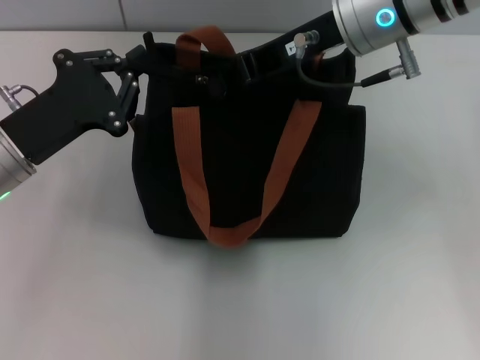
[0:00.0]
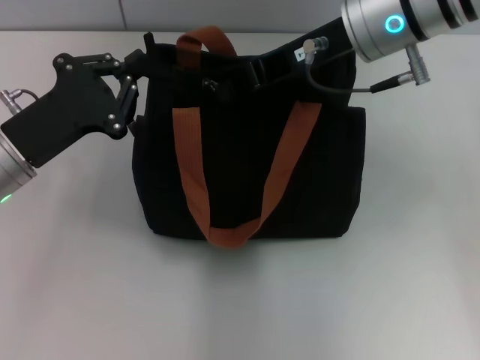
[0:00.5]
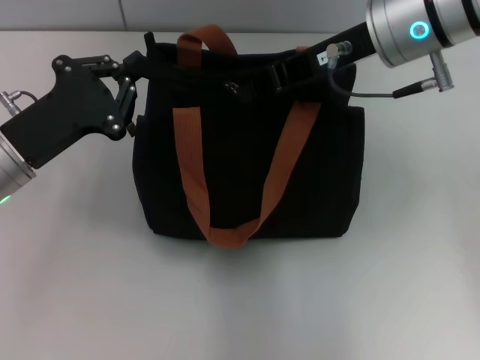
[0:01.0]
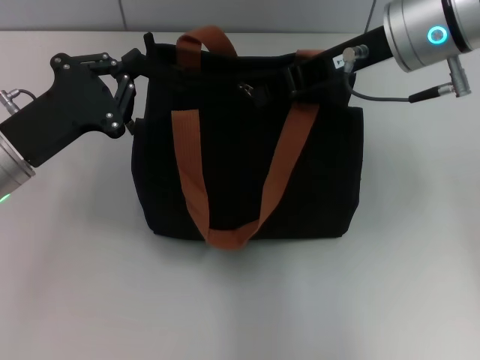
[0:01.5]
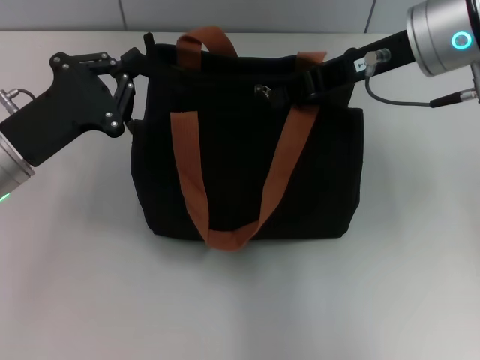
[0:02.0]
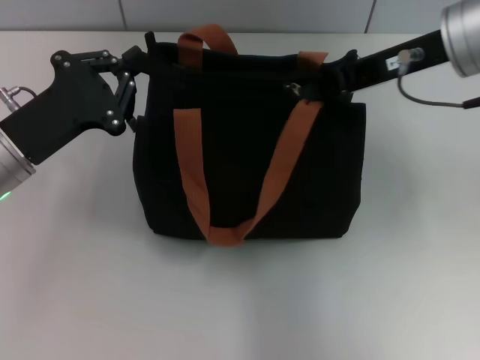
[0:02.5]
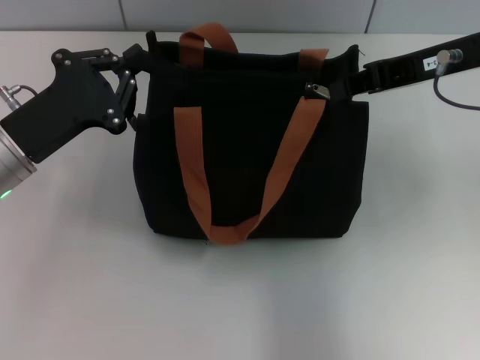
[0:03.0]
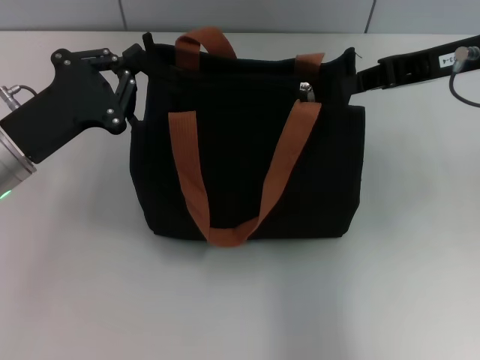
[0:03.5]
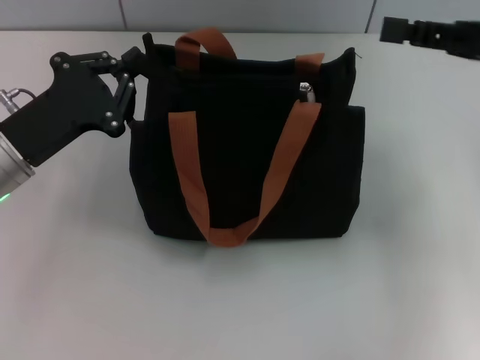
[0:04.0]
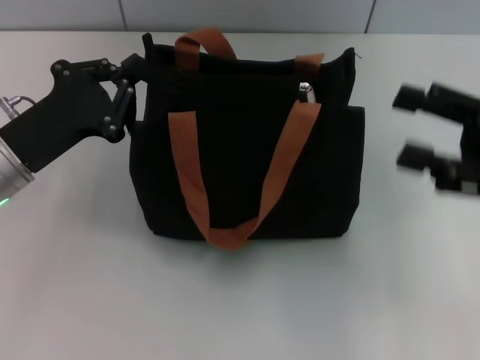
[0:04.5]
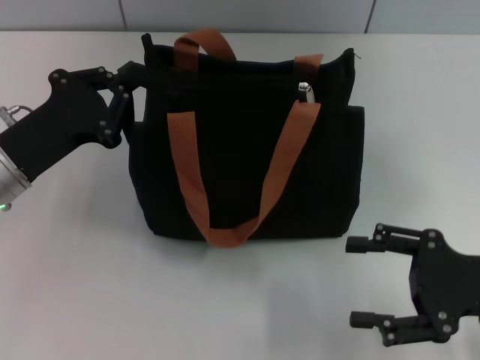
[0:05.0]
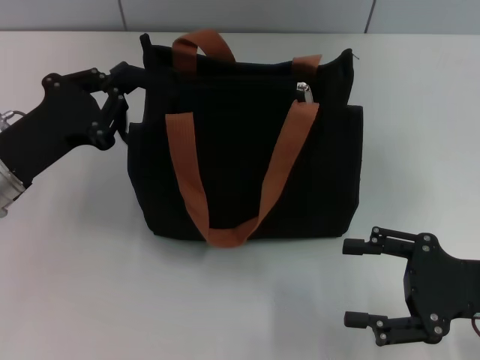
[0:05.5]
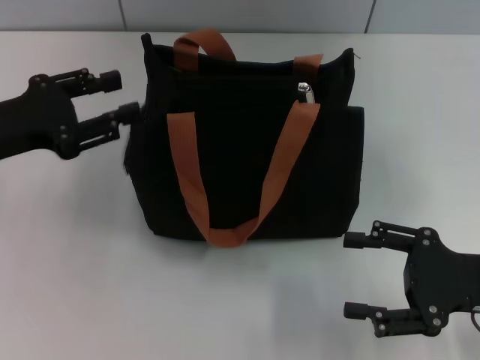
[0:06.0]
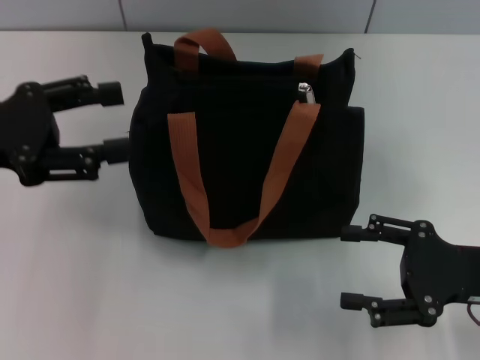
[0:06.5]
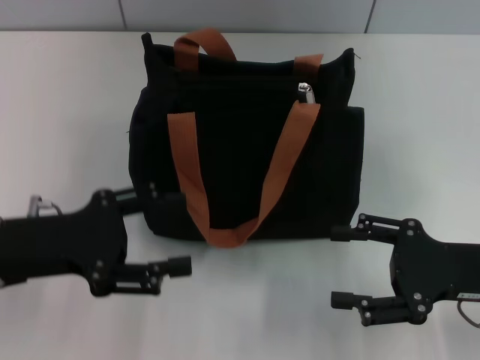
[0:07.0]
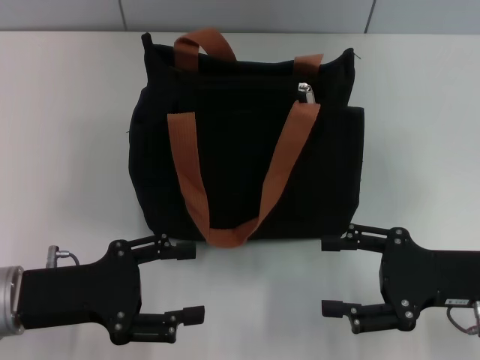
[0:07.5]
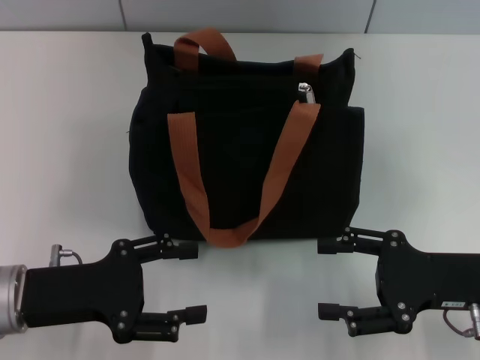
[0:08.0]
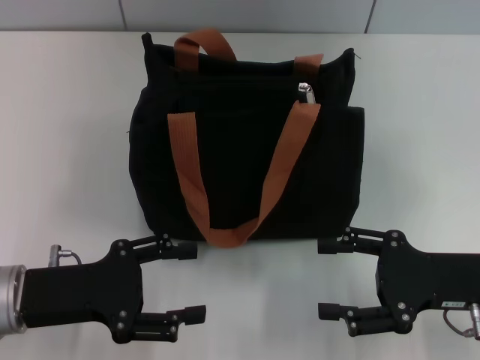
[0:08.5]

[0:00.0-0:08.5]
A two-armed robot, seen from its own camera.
Step, 0:00.0 to 0:03.0: Pull up the zipper with your right hand.
0:00.0 to 0:02.0: The right gripper shifts approximately 5 cm to the right.
0:02.0 to 0:04.0: The right gripper is displaced to the right by approximately 15 cm.
0:04.0 to 0:06.5: The right gripper is displaced downward and backward by some 15 cm, and opens its fingers. Meanwhile the left gripper goes roughly 10 cm upward, and opens its fingers.
0:06.5 to 0:08.5: The left gripper shifts about 15 cm downward and backward.
